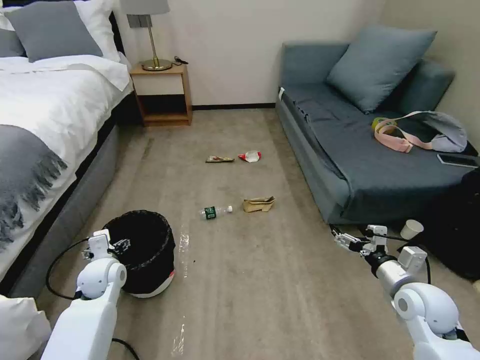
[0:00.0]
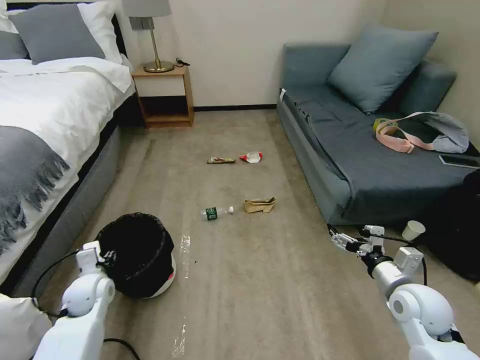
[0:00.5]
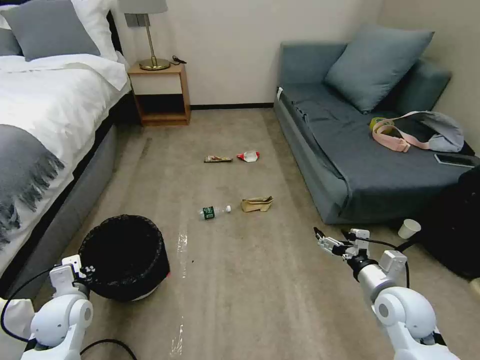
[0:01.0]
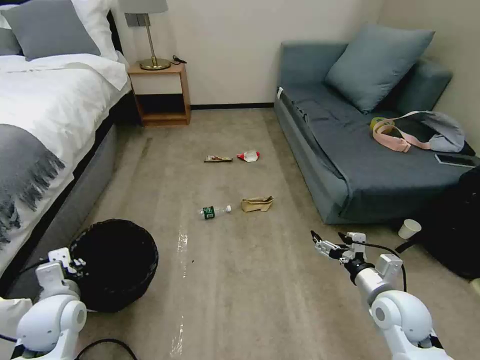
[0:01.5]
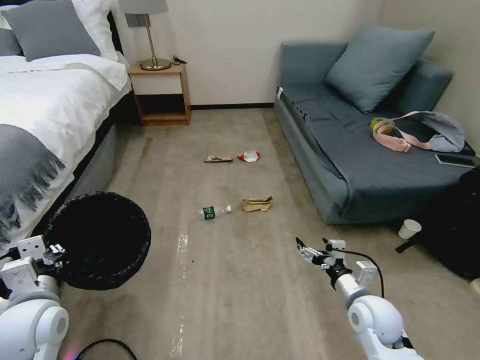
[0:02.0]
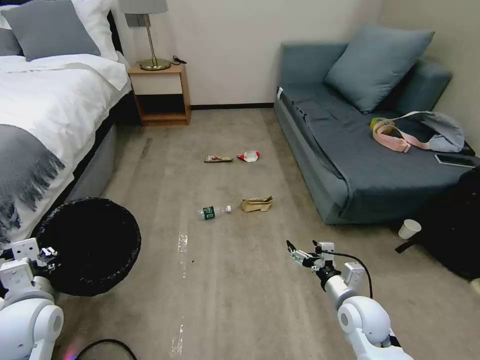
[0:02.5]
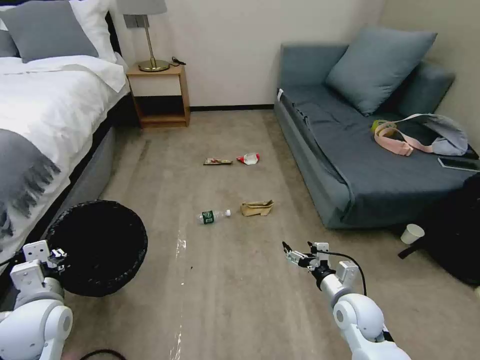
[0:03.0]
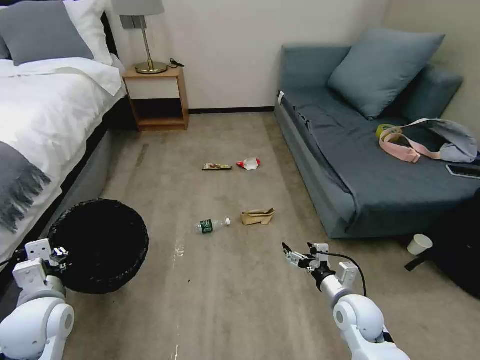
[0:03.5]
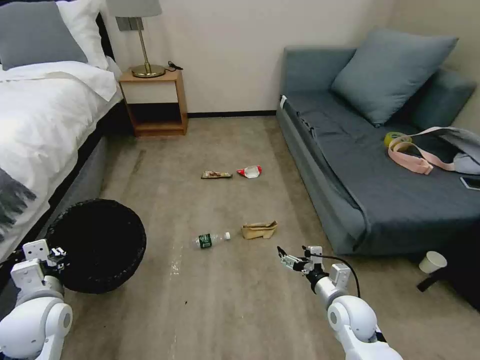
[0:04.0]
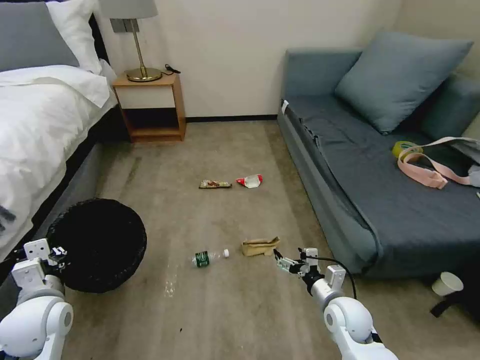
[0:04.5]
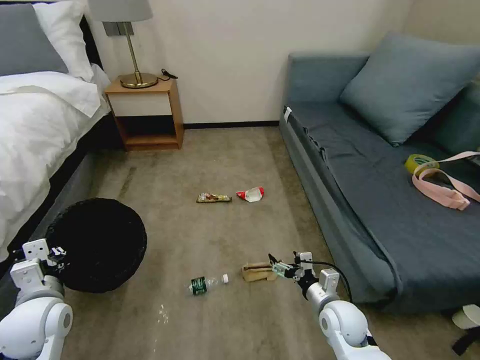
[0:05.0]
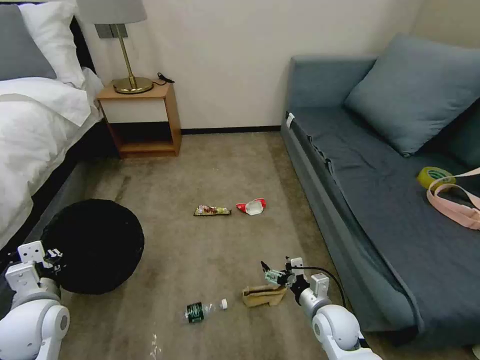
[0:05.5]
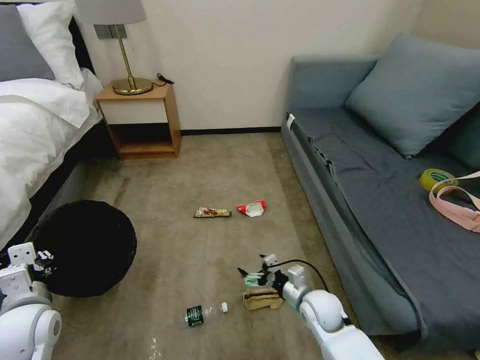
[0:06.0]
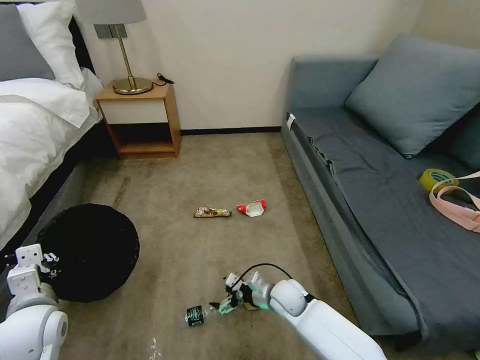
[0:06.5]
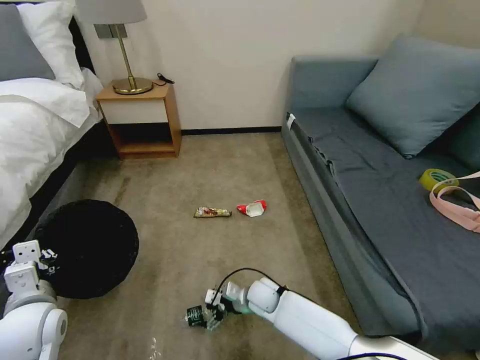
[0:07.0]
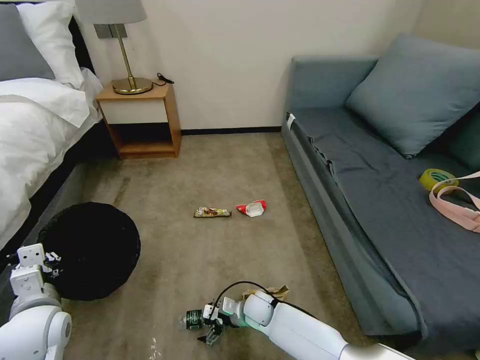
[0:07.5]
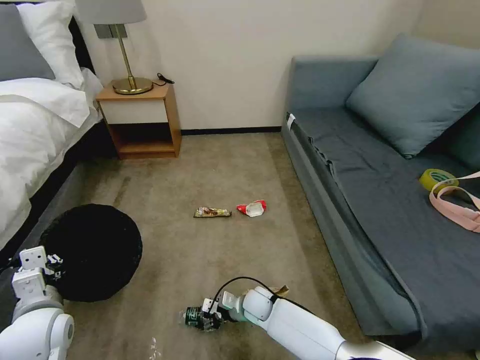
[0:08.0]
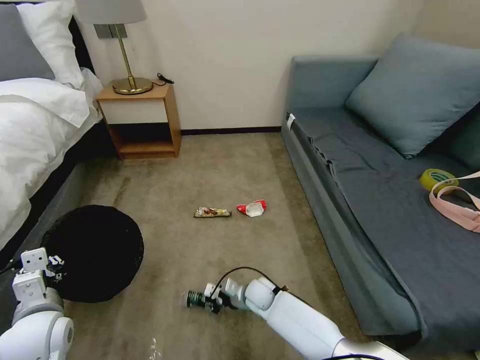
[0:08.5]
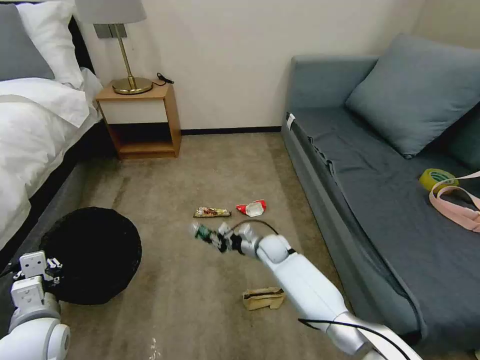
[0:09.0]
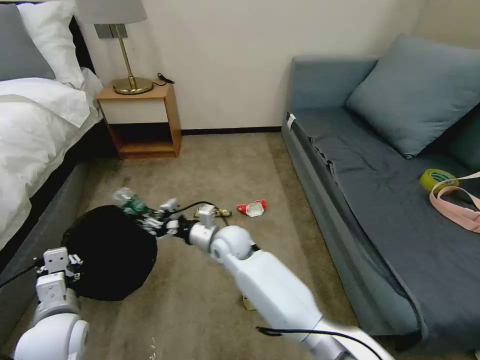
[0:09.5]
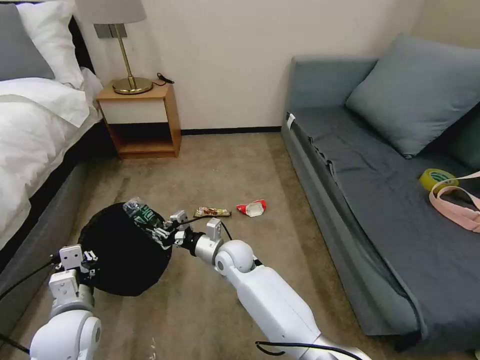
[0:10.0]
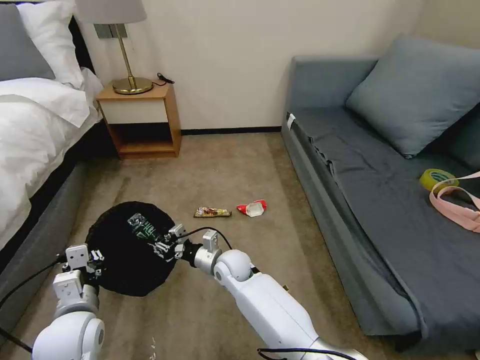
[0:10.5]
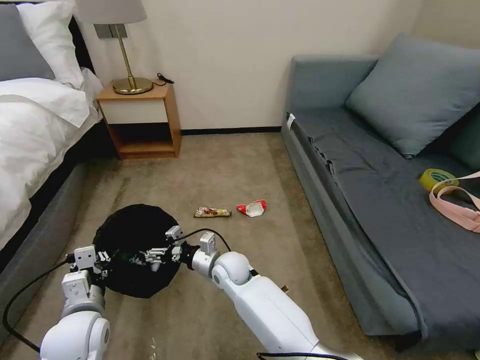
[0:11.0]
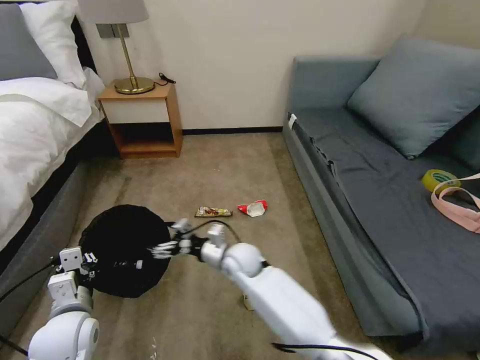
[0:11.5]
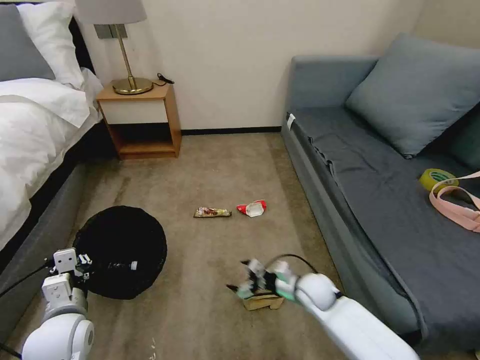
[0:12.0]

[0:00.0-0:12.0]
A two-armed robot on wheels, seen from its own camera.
Task of the whole recording: Pick up the trash bin, then pick up the garbage on the floor and place it into the trash bin.
0:00.0 to 0:02.0: The right gripper travels to the left by roughly 10 cm, while the left gripper goes approximately 20 cm backward and upward, and closes its fingers.
0:02.0 to 0:04.0: The right gripper shifts by approximately 5 cm.
0:04.0 to 0:06.0: The right gripper is displaced to the left by roughly 5 cm.
0:06.0 to 0:08.0: The right gripper shifts roughly 15 cm to the left and downward, and closes up.
0:08.0 to 0:10.0: The right gripper moves upward and to the left, about 20 cm.
0:10.0 to 0:12.0: The right gripper heads to the right, covering approximately 20 cm, and opens its fingers.

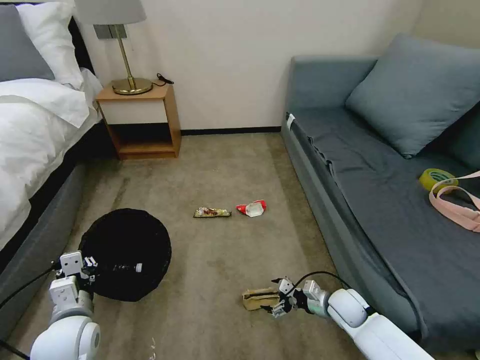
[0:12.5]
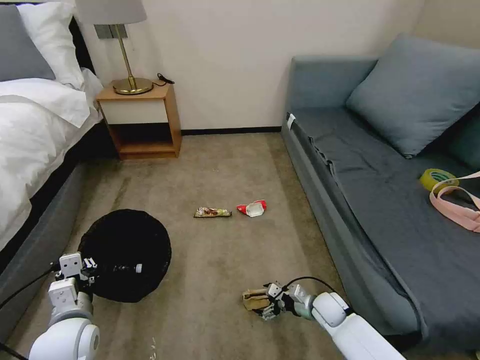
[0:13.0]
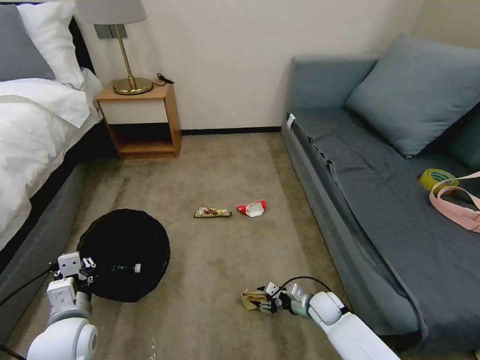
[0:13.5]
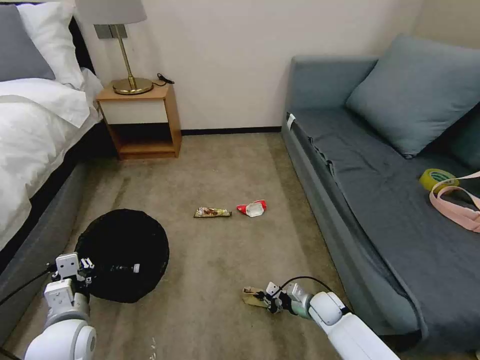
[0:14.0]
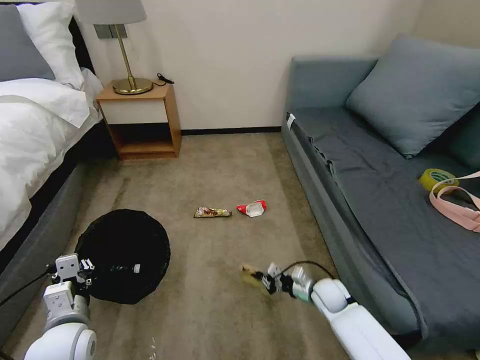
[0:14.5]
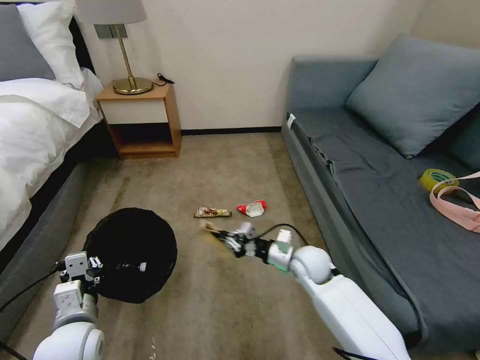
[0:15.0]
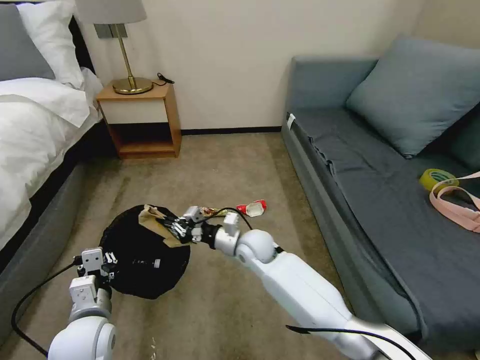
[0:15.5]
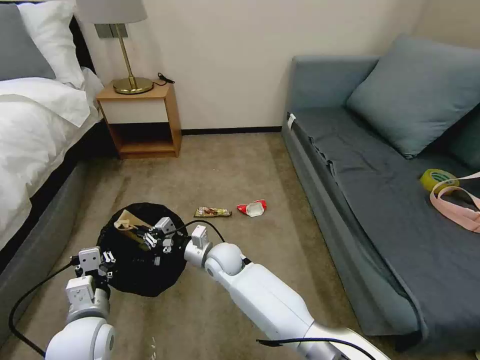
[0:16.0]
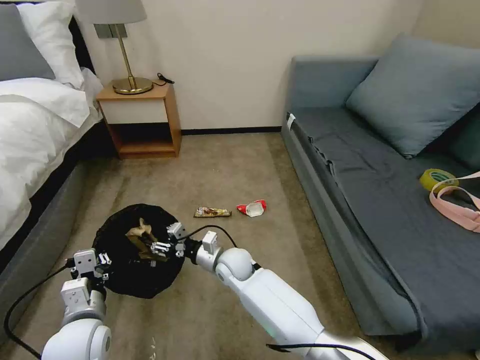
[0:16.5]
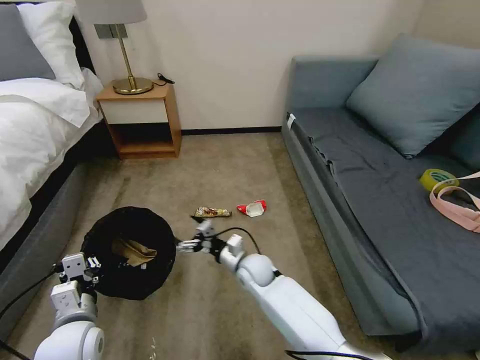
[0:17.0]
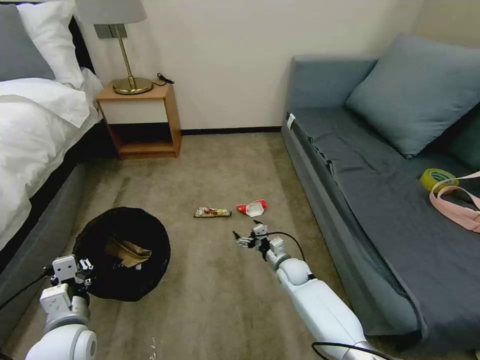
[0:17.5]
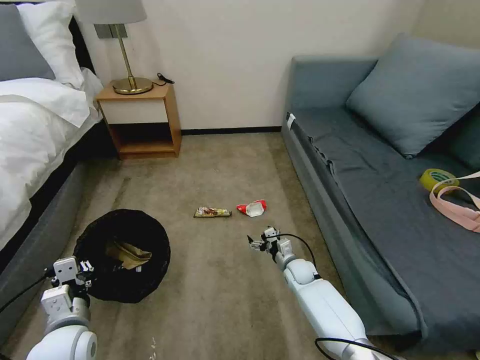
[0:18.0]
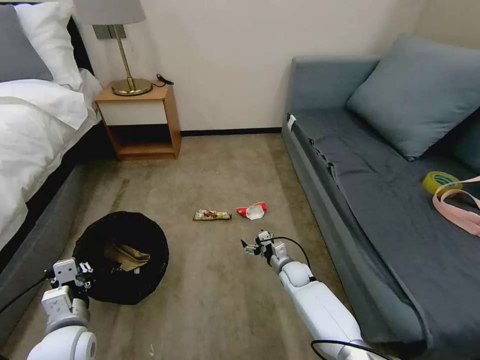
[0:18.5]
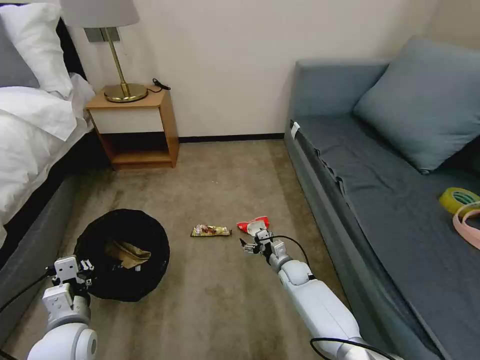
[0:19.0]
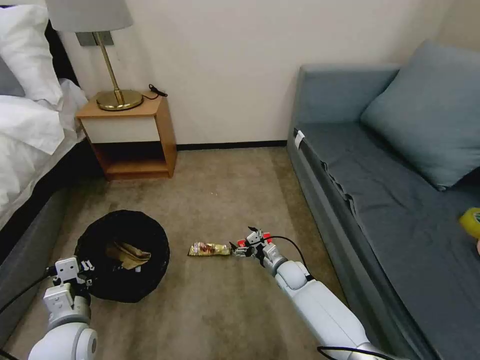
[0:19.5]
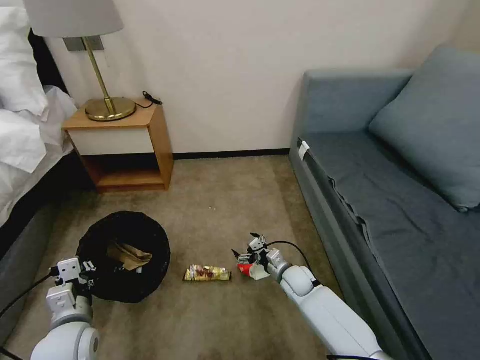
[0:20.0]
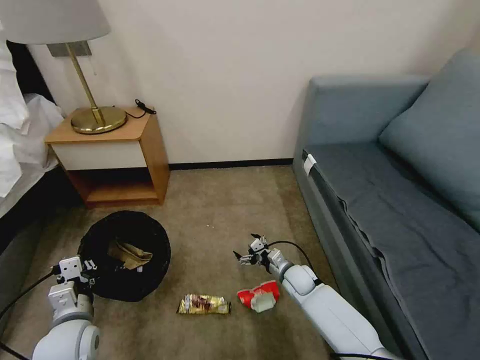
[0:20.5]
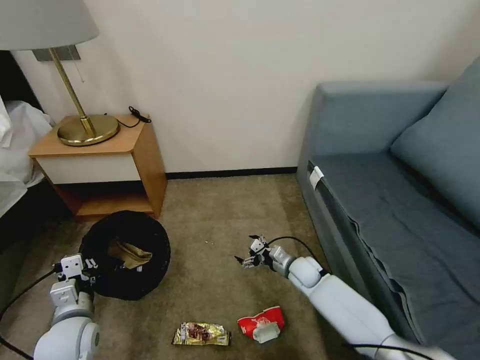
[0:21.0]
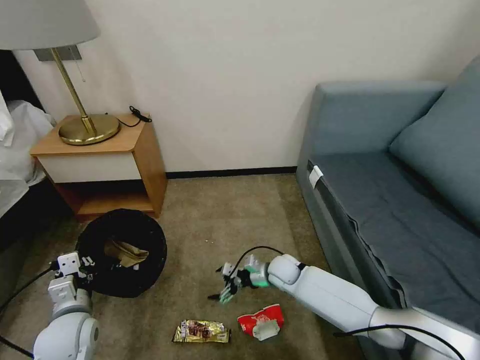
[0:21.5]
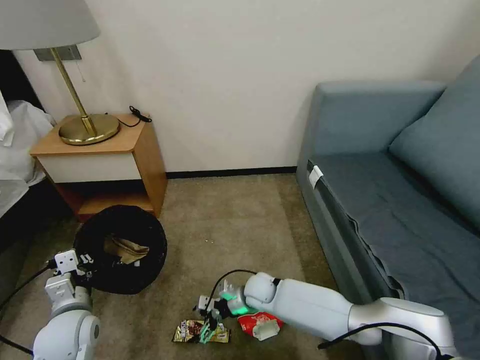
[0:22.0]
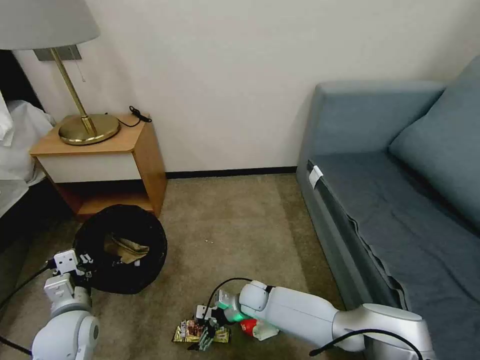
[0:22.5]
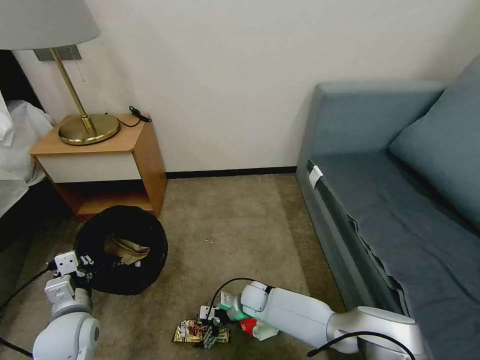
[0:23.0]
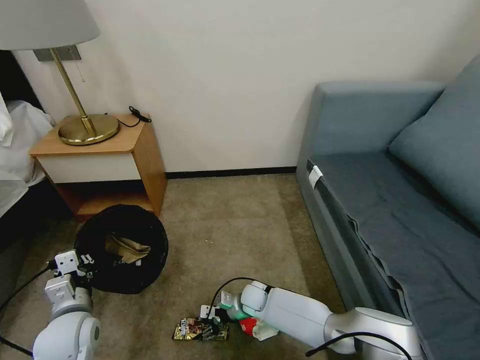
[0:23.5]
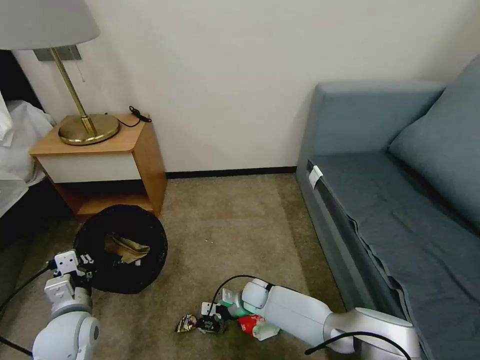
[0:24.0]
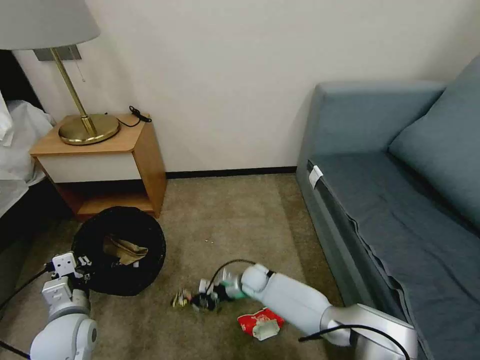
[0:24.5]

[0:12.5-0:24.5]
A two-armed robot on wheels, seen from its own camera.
Task of the whole recording: Pick up the trash bin, then pick up the garbage on the floor and place it into the trash bin.
0:12.5 to 0:14.5: The right gripper ends up some 5 cm from where it was, and closes up.
0:14.5 to 0:16.5: The right gripper shifts approximately 25 cm to the left, and opens.
0:16.5 to 0:18.5: The right gripper shifts about 25 cm to the right and downward, and opens its fingers.
0:20.5 to 0:22.5: The right gripper moves to the left, some 15 cm.
0:22.5 to 0:24.5: The right gripper shifts about 5 cm forward, and closes up.

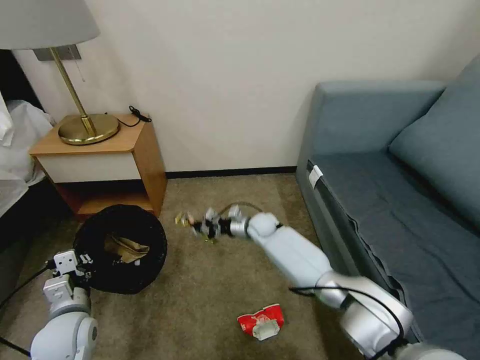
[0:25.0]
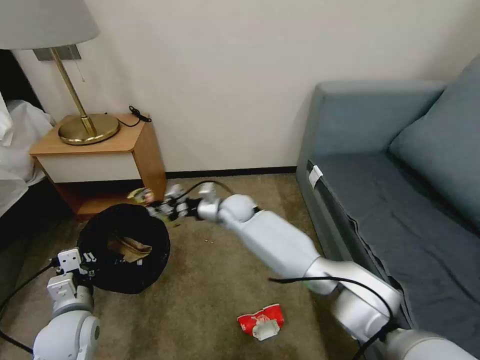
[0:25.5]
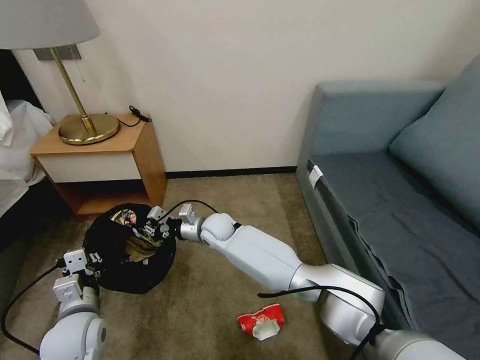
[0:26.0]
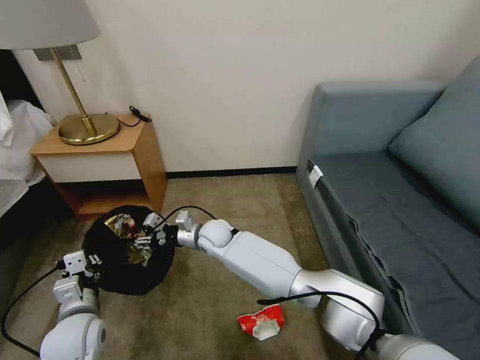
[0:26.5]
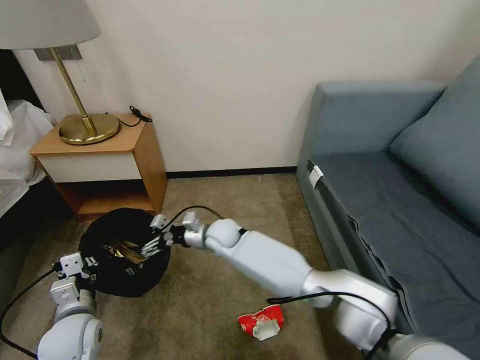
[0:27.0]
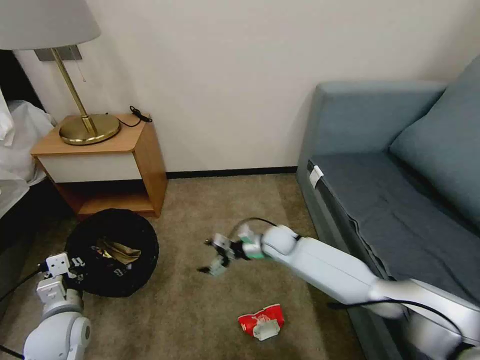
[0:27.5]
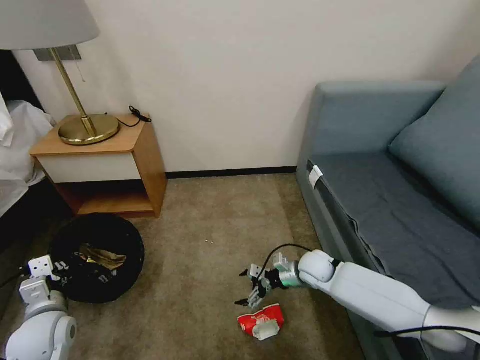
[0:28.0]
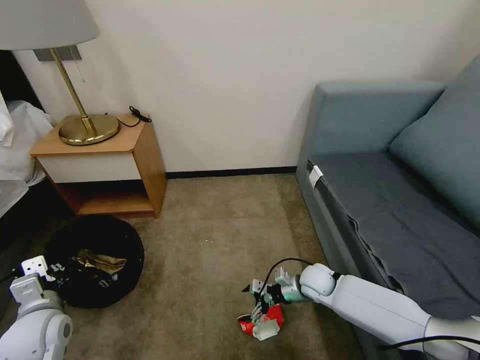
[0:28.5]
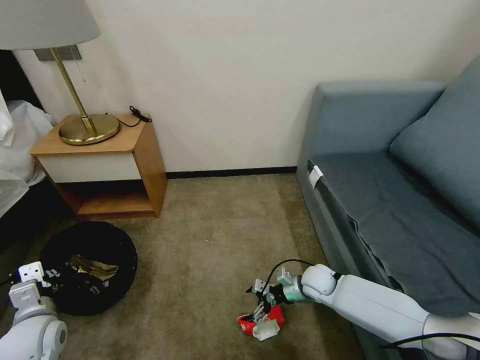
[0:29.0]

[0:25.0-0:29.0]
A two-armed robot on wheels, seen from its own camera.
Task of the whole recording: Pick up the trash bin, then pick up the garbage on the floor and place it into the trash bin.
0:25.0 to 0:27.0: The right gripper is displaced to the left and backward by some 15 cm, and opens up.
0:27.0 to 0:29.0: The right gripper moves to the right, about 30 cm; the left gripper moves to the left, roughly 5 cm.
